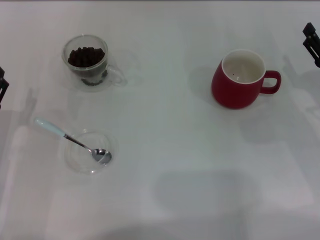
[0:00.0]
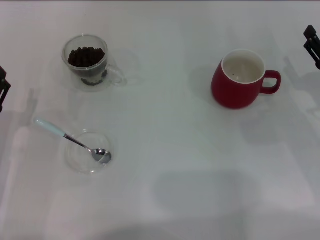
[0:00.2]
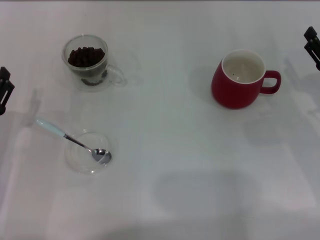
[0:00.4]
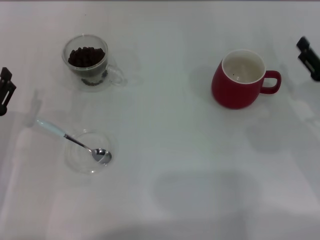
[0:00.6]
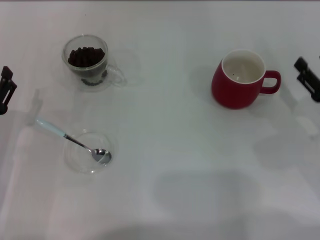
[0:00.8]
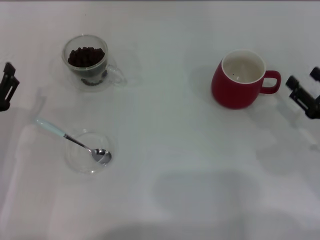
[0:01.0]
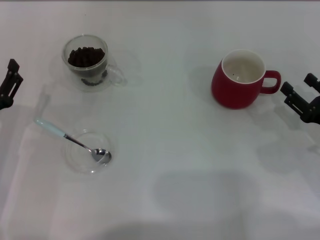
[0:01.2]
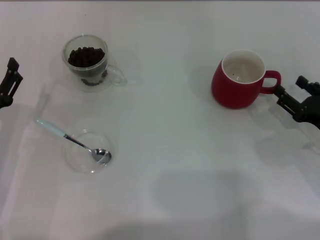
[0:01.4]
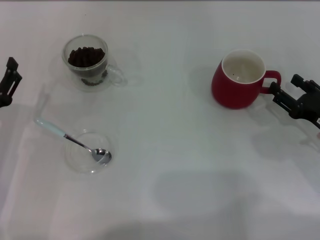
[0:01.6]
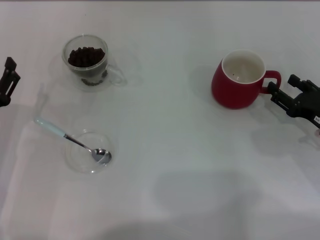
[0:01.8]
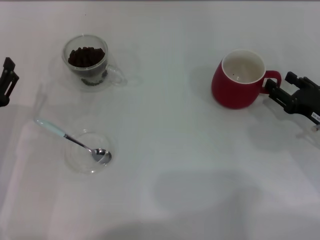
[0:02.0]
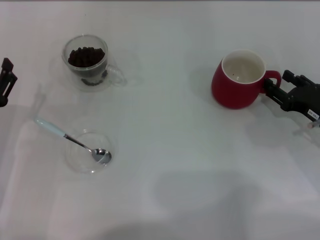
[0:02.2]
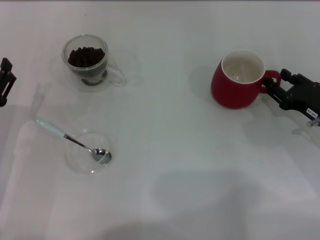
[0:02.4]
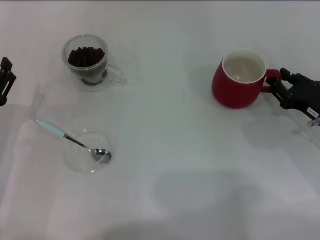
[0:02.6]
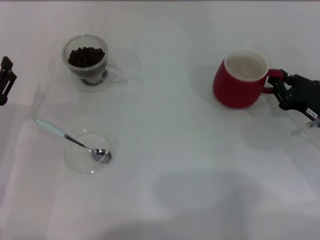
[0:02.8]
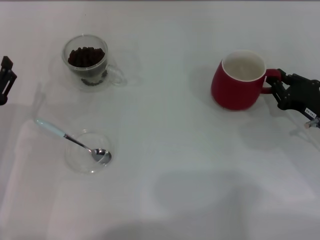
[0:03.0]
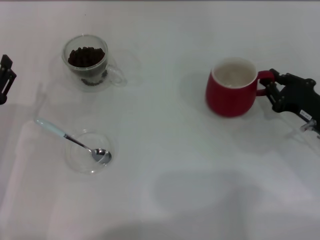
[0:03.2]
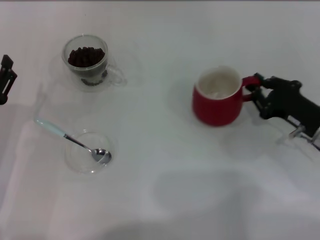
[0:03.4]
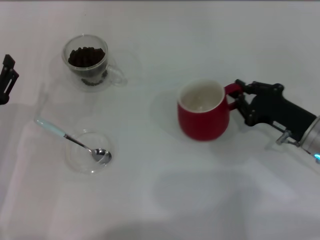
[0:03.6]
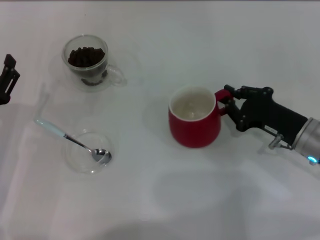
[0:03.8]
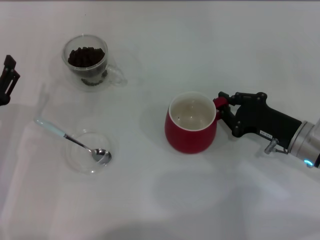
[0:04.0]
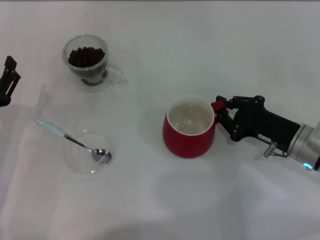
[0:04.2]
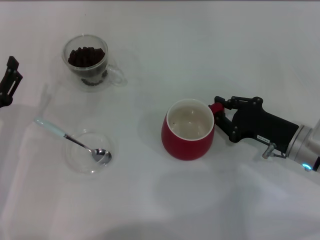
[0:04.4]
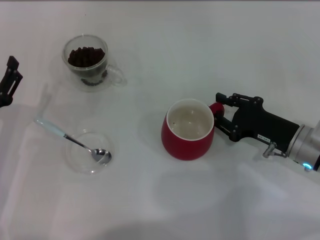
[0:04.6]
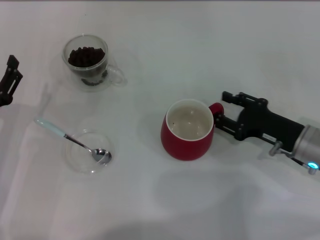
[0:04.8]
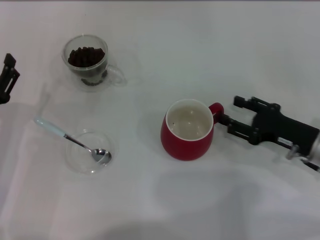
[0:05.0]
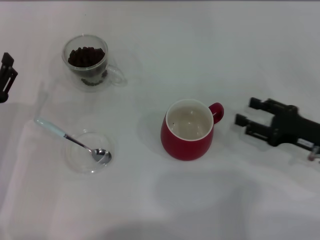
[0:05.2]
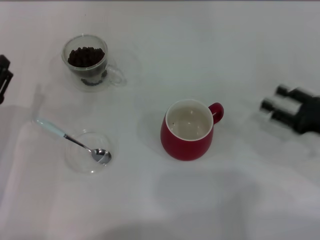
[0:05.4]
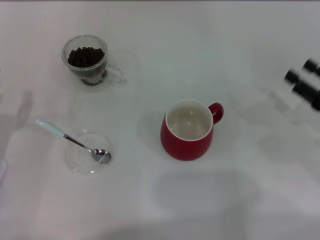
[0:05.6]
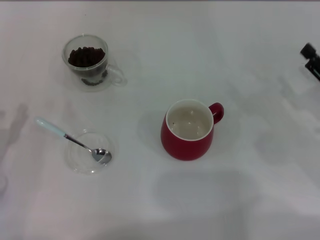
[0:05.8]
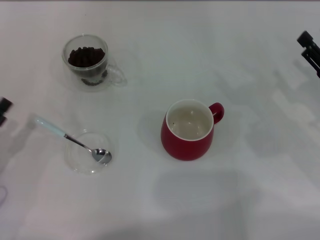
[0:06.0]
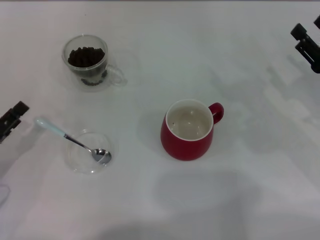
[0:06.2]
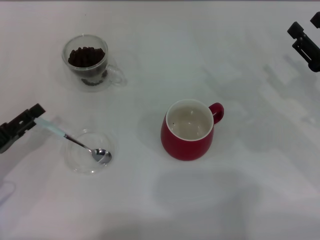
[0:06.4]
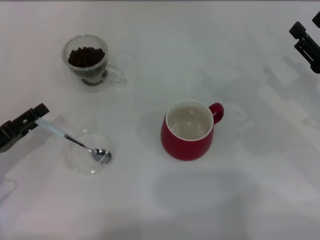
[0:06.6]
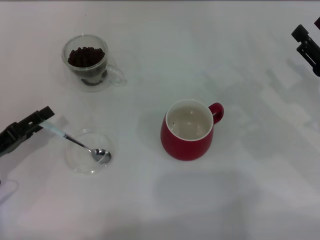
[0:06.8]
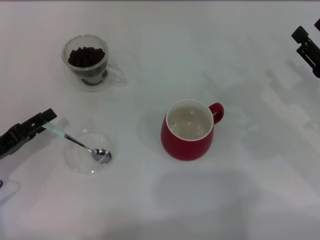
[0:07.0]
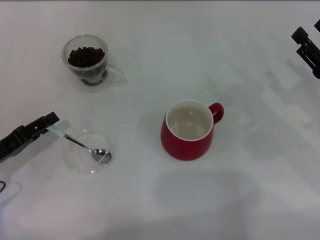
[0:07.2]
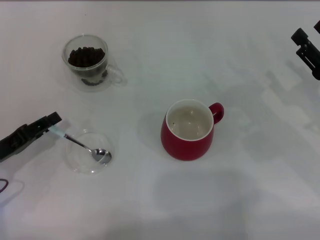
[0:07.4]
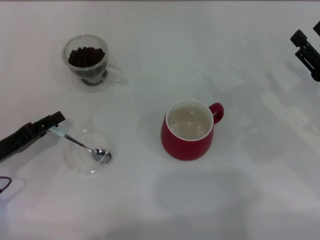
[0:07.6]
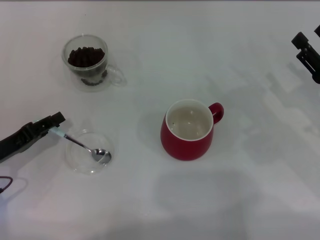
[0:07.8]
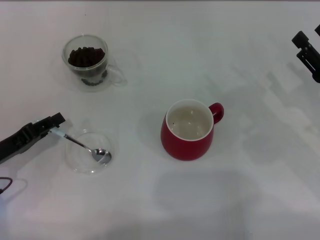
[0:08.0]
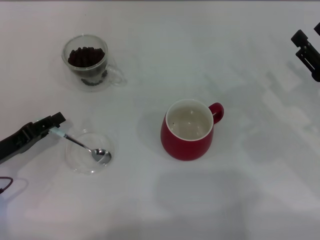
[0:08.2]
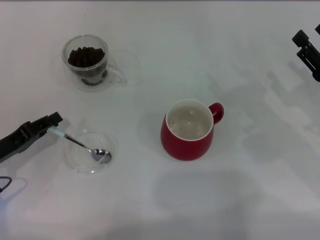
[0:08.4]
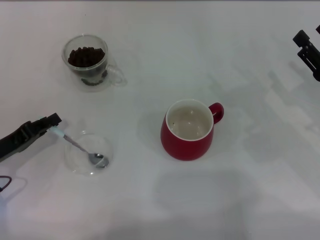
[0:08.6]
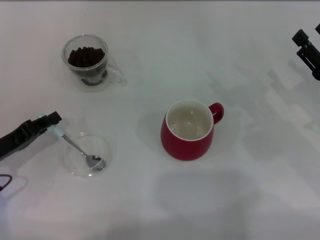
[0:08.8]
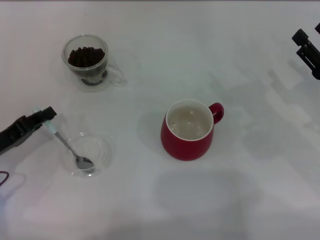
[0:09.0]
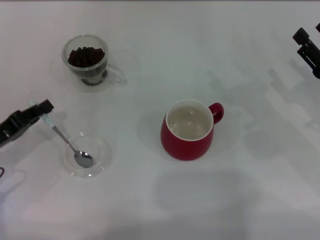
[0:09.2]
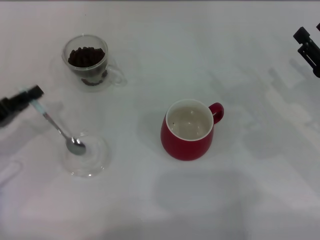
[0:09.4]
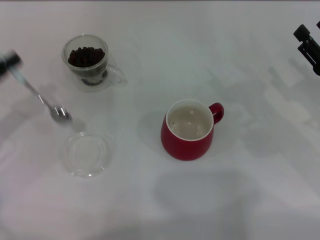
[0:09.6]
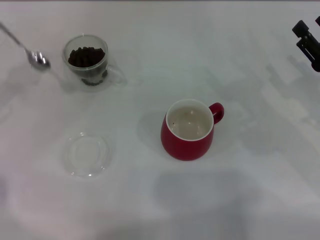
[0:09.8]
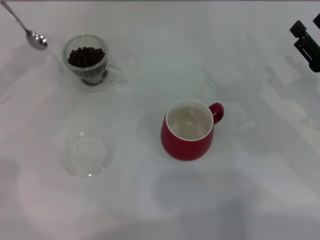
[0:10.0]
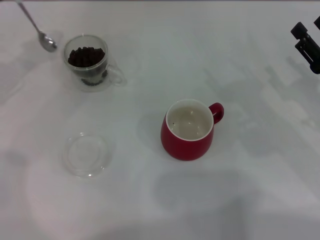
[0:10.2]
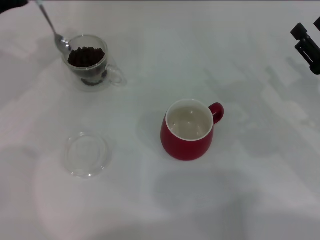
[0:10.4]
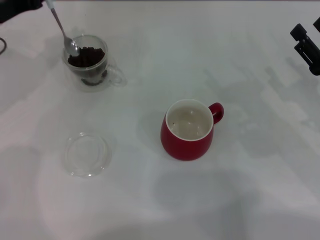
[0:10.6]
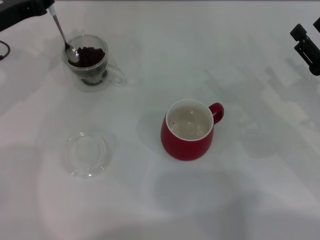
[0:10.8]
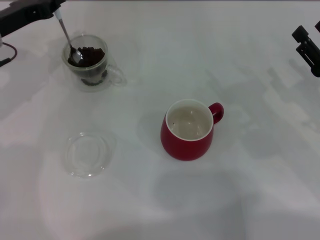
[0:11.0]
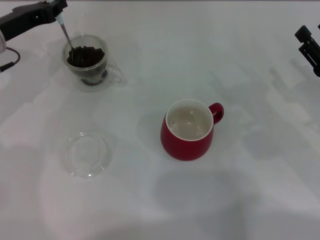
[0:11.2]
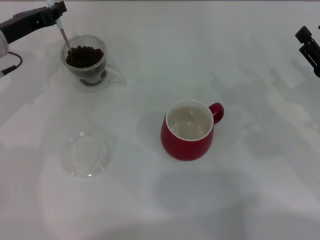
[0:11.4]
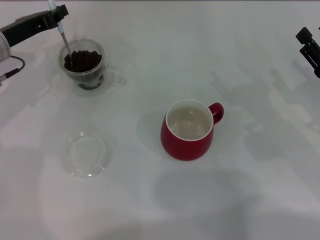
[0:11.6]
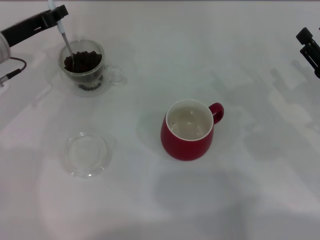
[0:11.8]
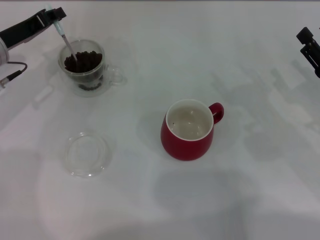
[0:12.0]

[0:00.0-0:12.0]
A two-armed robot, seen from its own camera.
Task of the whole recording: Use a blue spoon to take out the coffee beans from the glass and pour them into the red cup.
Step, 0:00.0 to 0:05.0: Move the cup to the center of view with the left gripper.
Step, 0:05.2 to 0:09.4: Pick up the spoon with the right gripper.
0:01.6 to 0:03.0: The right gripper closes up.
0:03.0 to 0:04.4: The right gripper travels to the left by roughly 5 cm.
0:04.4 to 0:06.0: The left gripper moves to the left, approximately 5 cm; the right gripper is displaced to the right by approximately 10 cm, and opens.
0:06.0 to 0:07.6: The left gripper changes place by roughly 5 cm, and closes its fingers.
0:07.6 to 0:09.0: The left gripper closes its fingers.
0:09.0 to 0:10.4: The left gripper travels forward and upward by roughly 20 cm.
0:10.4 to 0:12.0: The left gripper ends up some 5 cm from where it was.

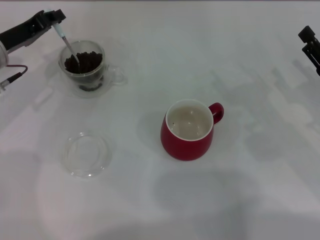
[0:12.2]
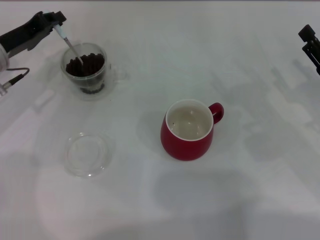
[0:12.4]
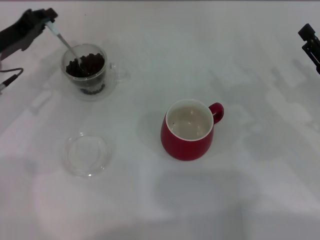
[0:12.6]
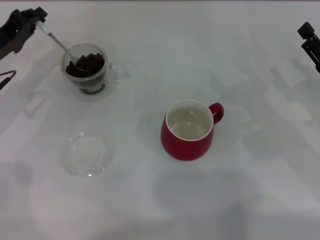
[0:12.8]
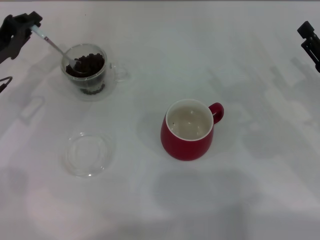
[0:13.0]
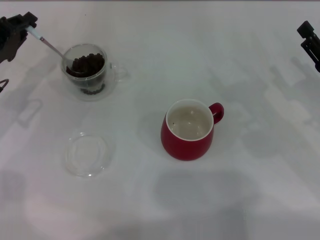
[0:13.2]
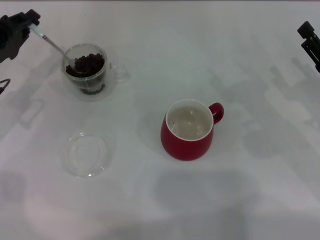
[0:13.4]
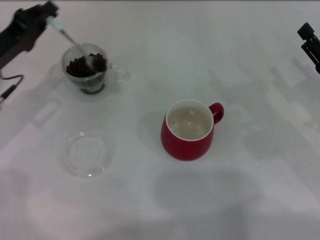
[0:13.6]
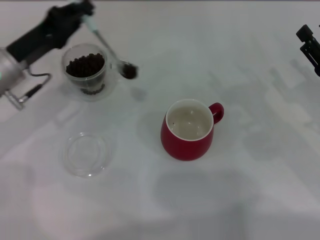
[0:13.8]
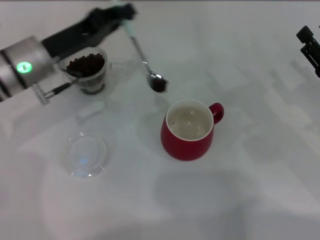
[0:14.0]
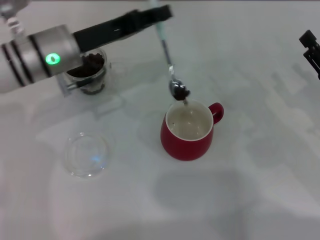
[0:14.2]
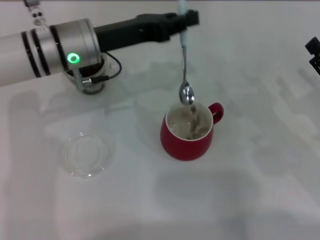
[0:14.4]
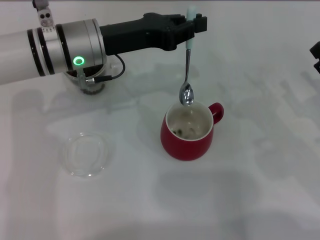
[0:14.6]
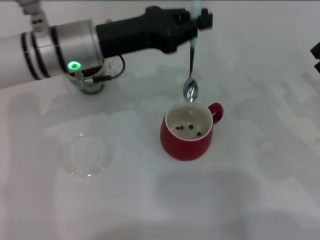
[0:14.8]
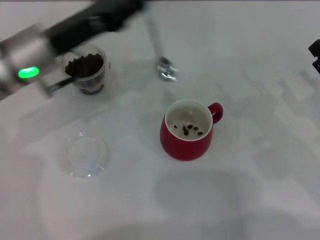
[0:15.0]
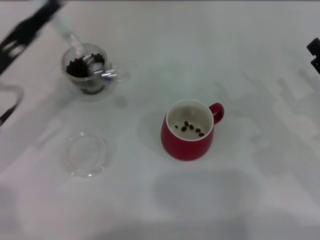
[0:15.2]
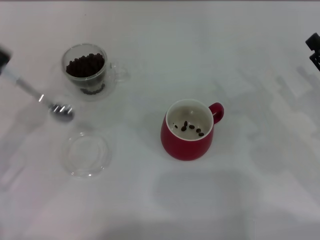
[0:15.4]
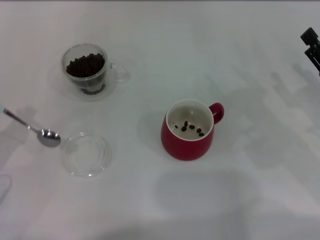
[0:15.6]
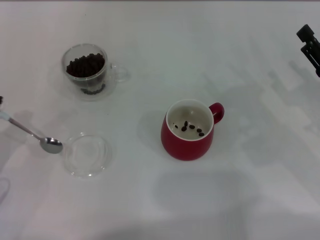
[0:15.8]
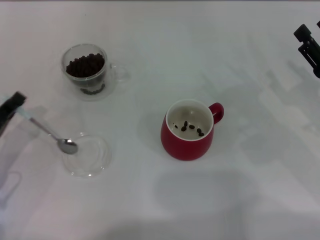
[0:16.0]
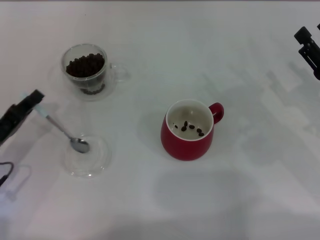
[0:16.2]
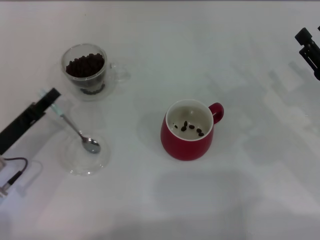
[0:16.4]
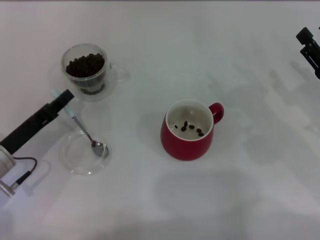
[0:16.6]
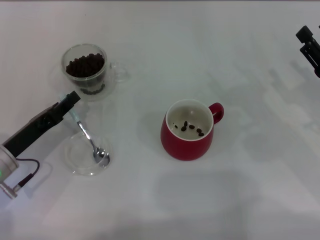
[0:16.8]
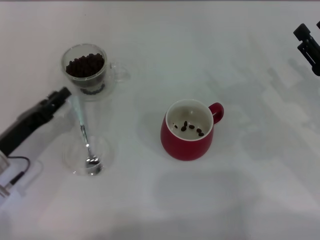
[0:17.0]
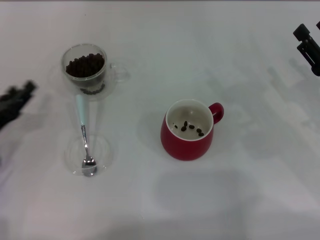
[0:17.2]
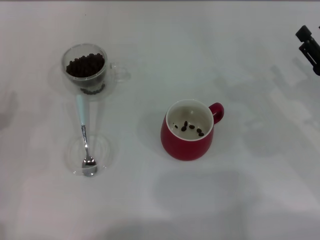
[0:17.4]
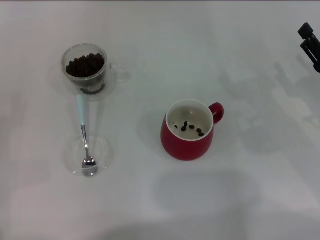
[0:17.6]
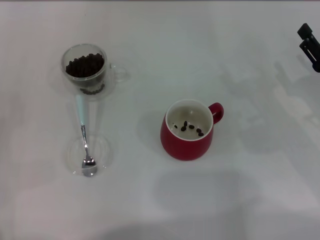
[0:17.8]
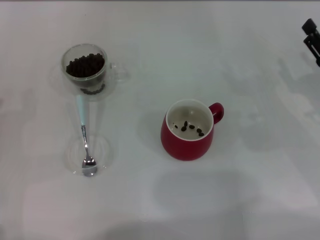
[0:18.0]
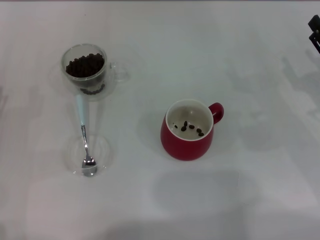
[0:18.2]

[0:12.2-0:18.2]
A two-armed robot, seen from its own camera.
Task of the whole recording: Use a blue spoon to take out the coffee beans from the glass and pour them into the red cup.
Step, 0:12.2 to 0:14.8: Scoop a spoonful of beans into the cup with the right gripper.
0:12.2 to 0:13.8: The left gripper ends up some 5 cm from where it was.
0:13.8 to 0:15.2: The left gripper travels backward by about 5 cm, and reaches about 10 cm to the right, then returns.
0:15.2 to 0:16.6: The left gripper is displaced downward by roughly 5 cm.
0:16.6 to 0:18.2: The left gripper is displaced to the left by some 5 cm, and opens up.
